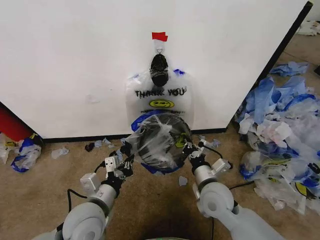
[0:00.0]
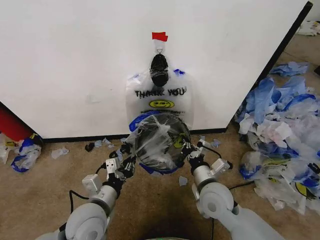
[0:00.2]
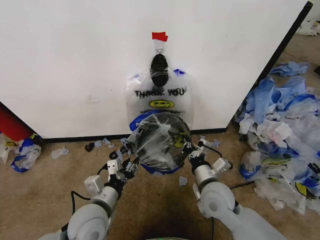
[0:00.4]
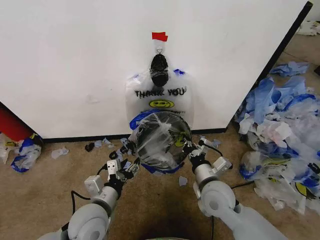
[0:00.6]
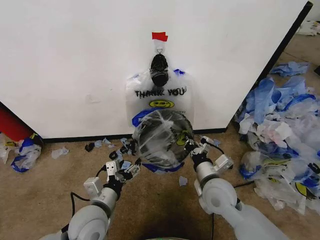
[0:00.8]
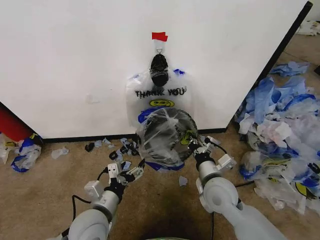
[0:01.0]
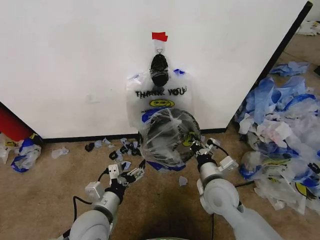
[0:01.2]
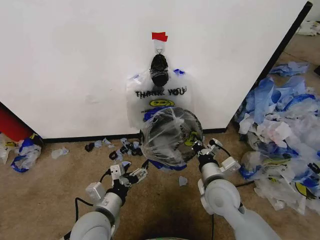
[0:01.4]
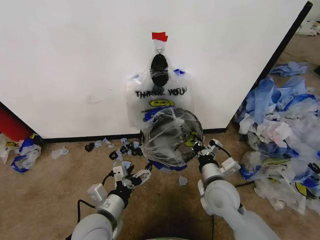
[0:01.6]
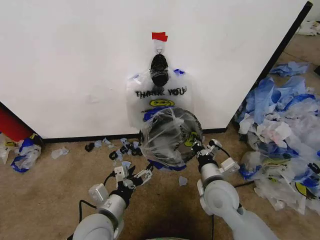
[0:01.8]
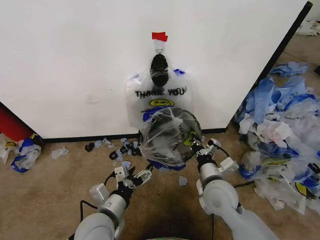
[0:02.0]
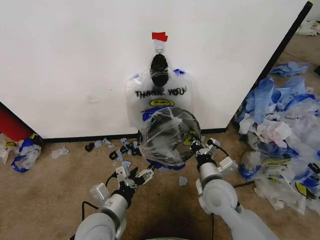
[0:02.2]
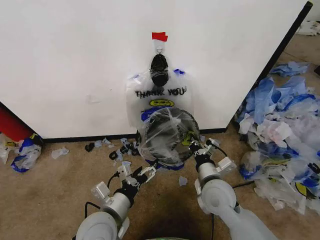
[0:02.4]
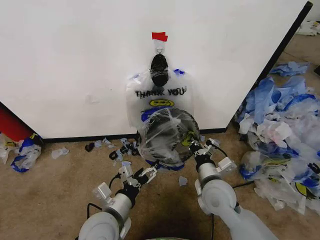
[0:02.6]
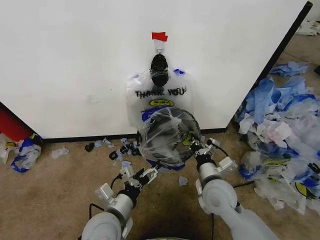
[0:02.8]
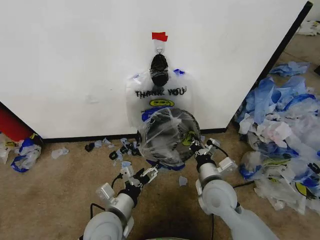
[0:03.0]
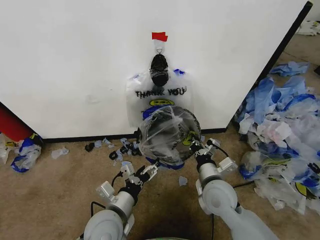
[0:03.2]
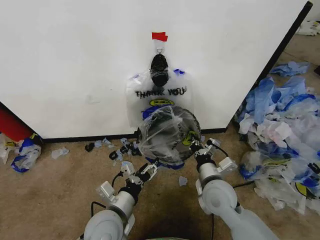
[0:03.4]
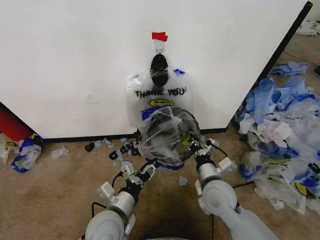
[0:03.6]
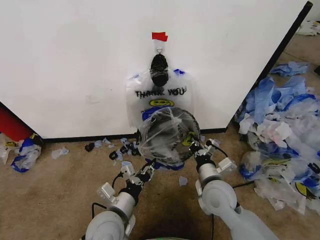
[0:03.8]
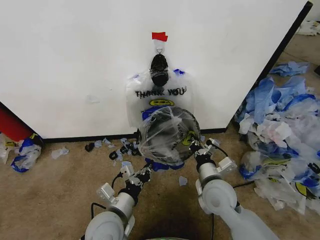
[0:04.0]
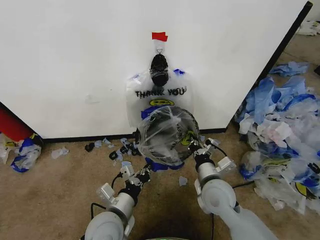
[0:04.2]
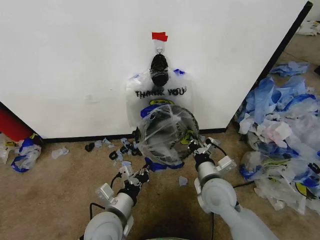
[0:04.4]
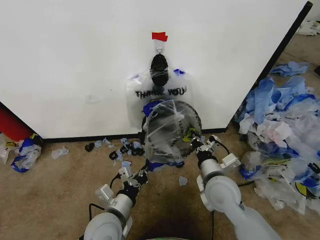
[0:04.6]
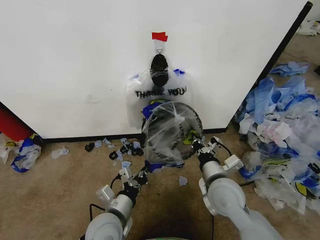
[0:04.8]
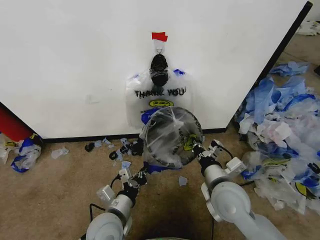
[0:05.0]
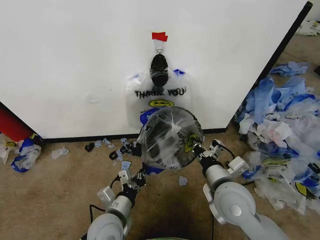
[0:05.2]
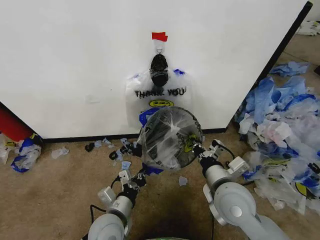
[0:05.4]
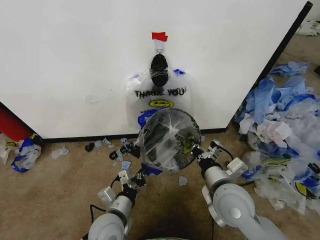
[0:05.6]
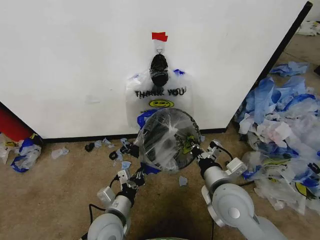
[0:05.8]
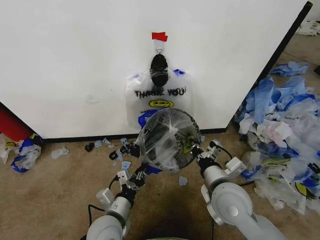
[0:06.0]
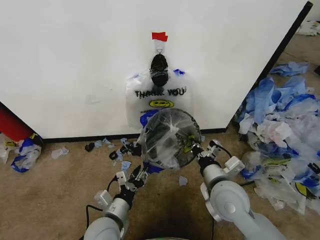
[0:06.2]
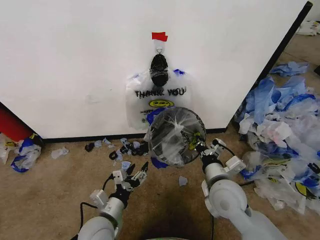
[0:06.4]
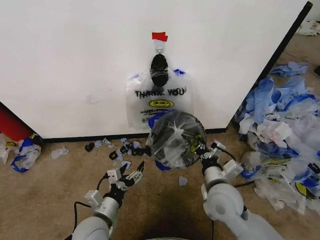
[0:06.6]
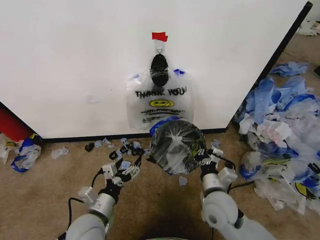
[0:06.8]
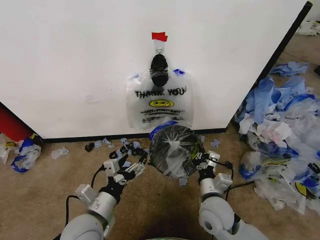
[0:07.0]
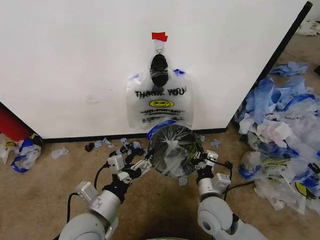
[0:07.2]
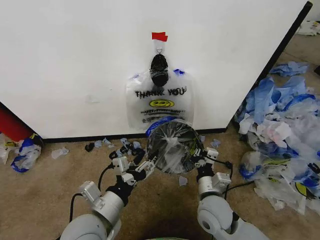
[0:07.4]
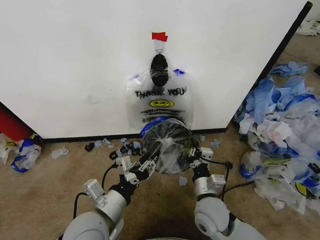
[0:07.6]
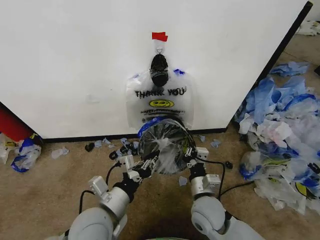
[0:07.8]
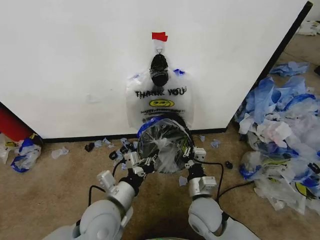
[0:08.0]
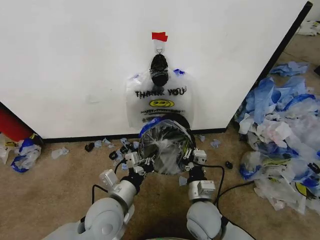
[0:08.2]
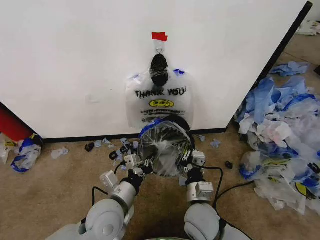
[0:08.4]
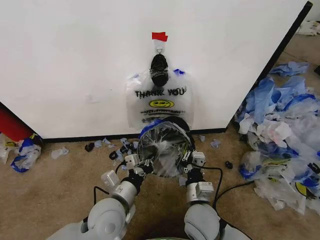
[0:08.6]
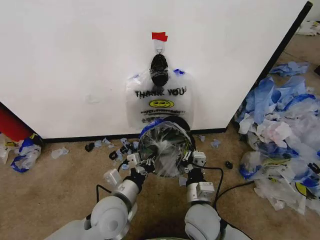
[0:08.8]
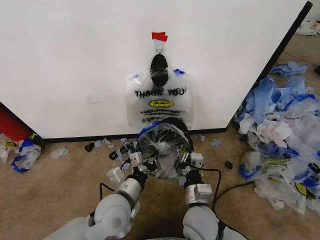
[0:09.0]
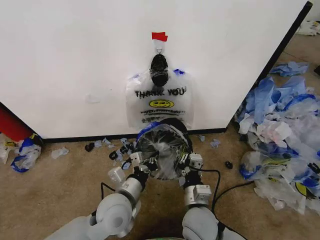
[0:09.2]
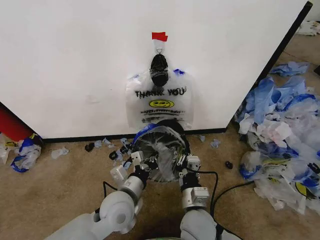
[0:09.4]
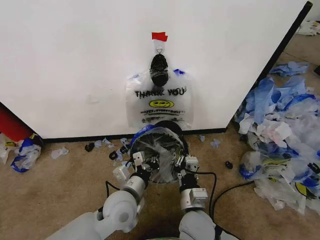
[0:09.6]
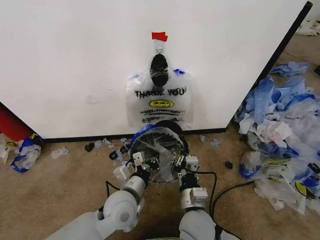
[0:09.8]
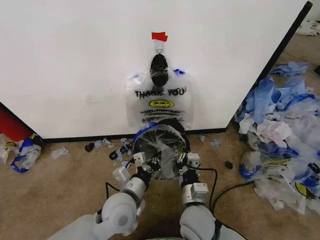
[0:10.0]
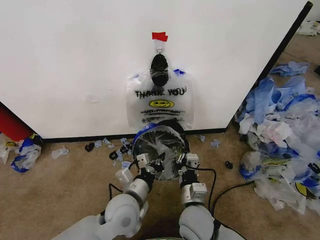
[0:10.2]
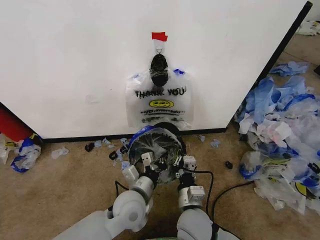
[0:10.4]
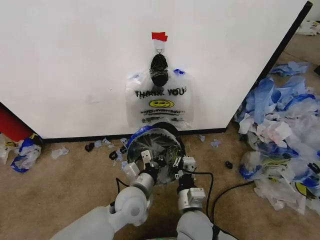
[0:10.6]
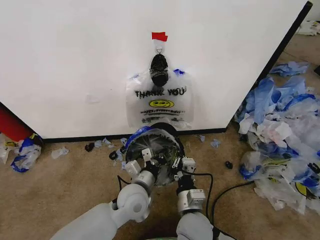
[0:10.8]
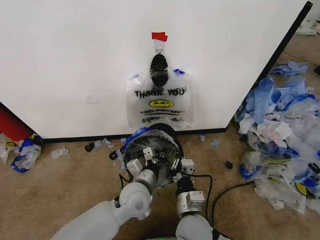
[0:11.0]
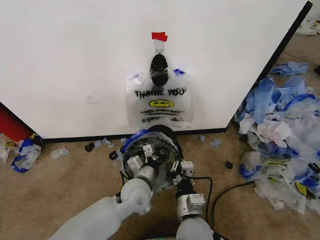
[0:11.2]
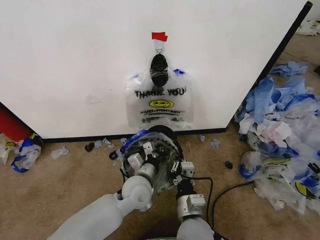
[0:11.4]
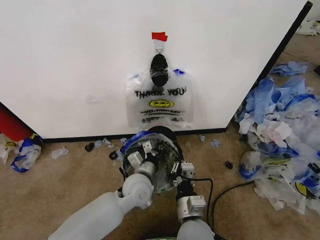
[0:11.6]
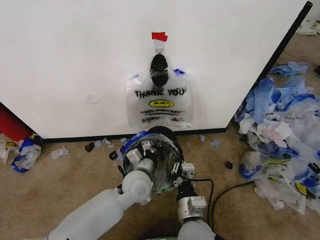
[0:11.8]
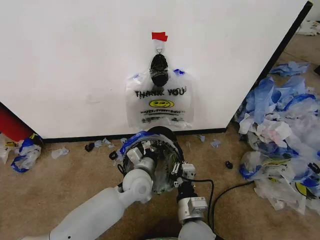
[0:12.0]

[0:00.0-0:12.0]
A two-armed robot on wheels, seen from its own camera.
Task of the whole recording: Pick up the garbage bag from the wall and place it over the trash bin.
0:00.0 to 0:01.6: The left gripper opens.
0:01.6 to 0:03.0: There are only small adjustments of the grippers.
0:03.0 to 0:04.4: The left gripper closes up.
0:04.4 to 0:06.0: The right gripper moves approximately 5 cm.
0:06.0 to 0:07.6: The left gripper heads upward, covering roughly 10 cm, and opens, then closes again; the right gripper travels downward by some 10 cm.
0:07.6 to 0:09.0: The left gripper travels forward by some 5 cm, and closes its fingers.
0:09.0 to 0:10.4: The grippers move only a little.
0:10.4 to 0:12.0: The left gripper is displaced forward by some 5 cm.

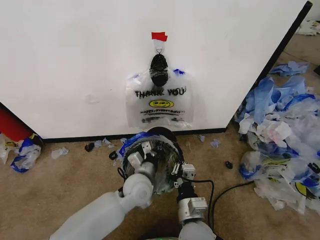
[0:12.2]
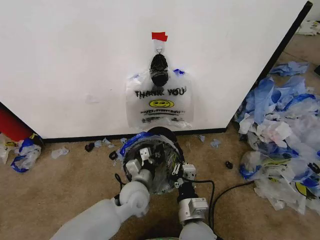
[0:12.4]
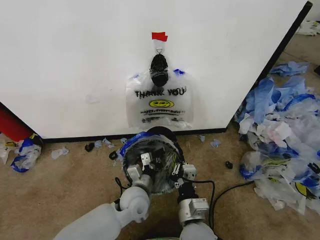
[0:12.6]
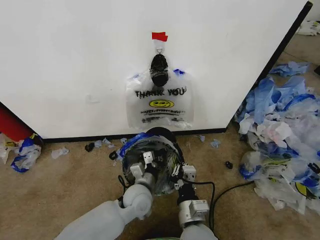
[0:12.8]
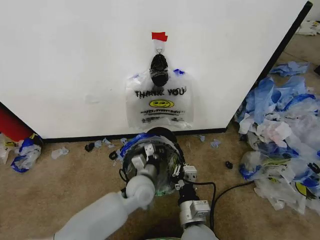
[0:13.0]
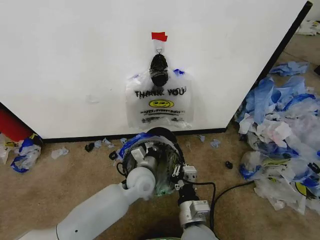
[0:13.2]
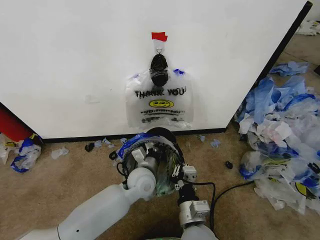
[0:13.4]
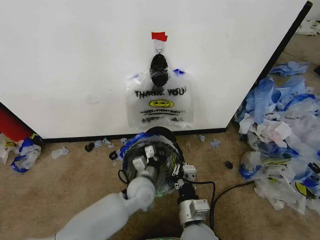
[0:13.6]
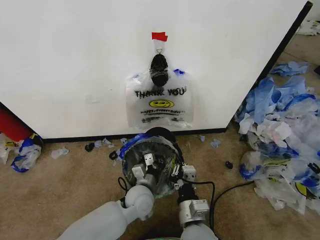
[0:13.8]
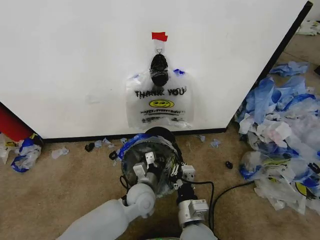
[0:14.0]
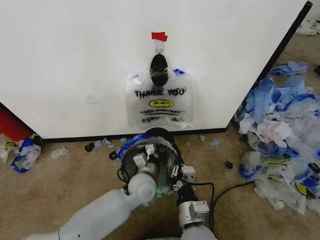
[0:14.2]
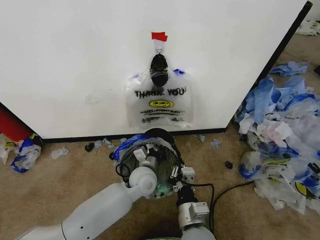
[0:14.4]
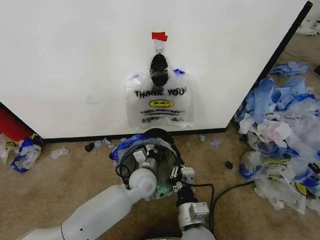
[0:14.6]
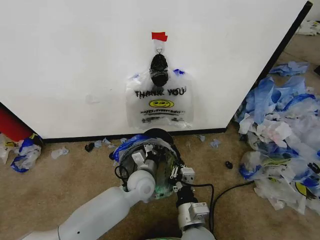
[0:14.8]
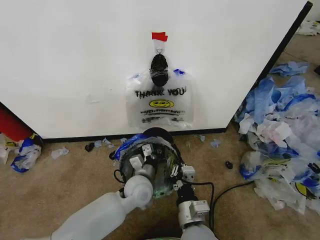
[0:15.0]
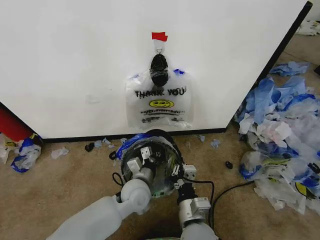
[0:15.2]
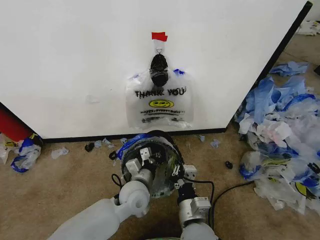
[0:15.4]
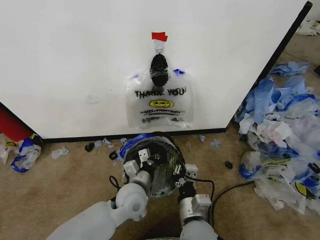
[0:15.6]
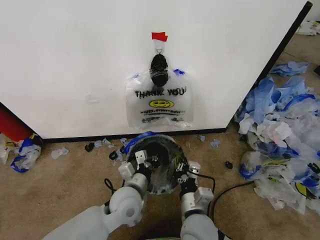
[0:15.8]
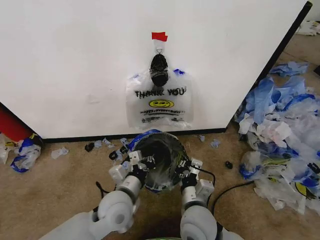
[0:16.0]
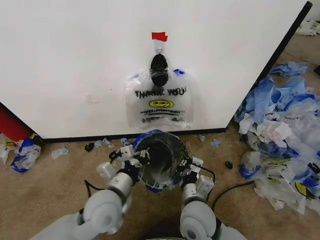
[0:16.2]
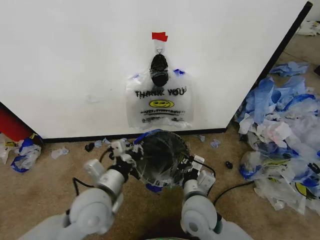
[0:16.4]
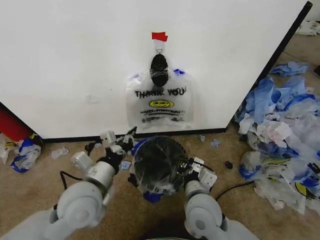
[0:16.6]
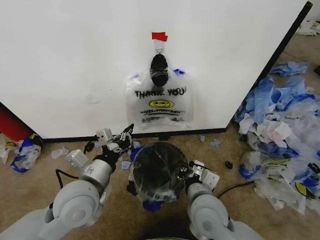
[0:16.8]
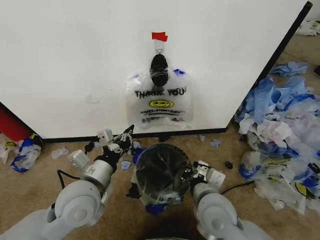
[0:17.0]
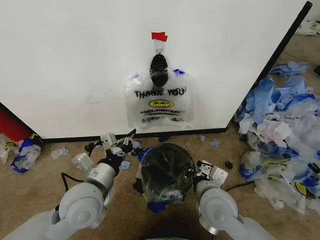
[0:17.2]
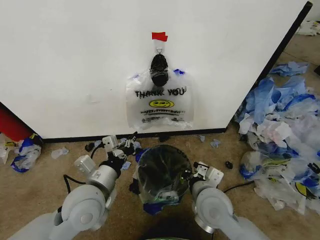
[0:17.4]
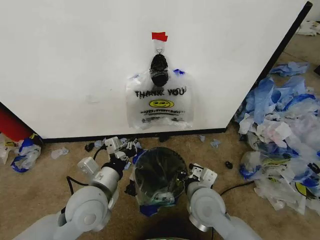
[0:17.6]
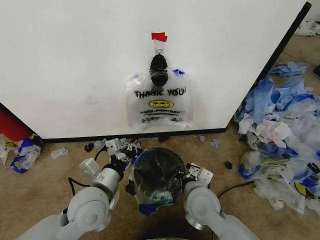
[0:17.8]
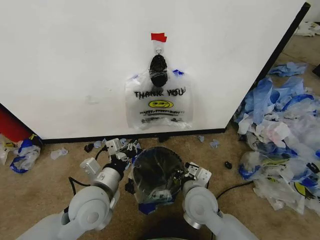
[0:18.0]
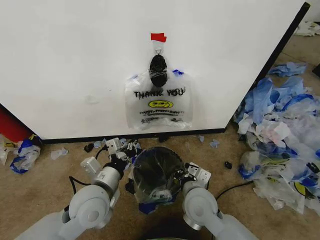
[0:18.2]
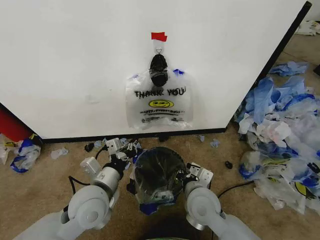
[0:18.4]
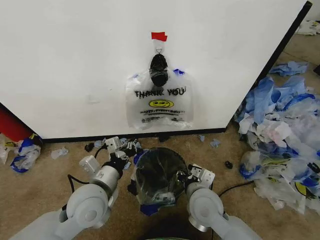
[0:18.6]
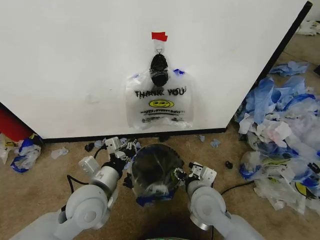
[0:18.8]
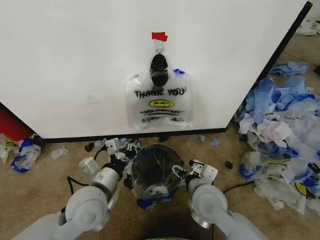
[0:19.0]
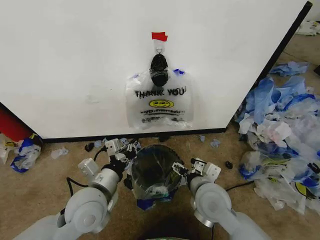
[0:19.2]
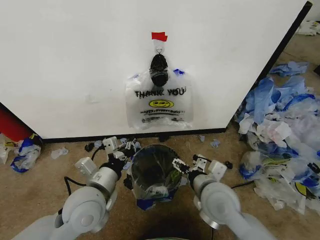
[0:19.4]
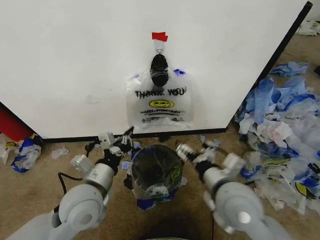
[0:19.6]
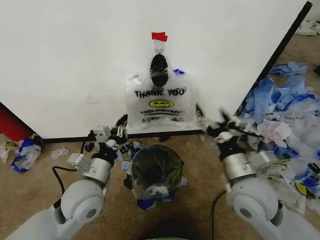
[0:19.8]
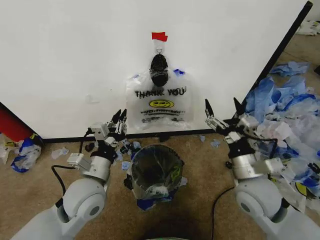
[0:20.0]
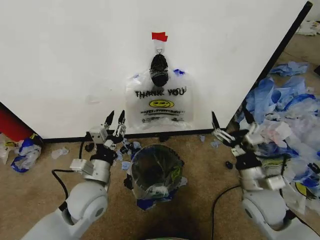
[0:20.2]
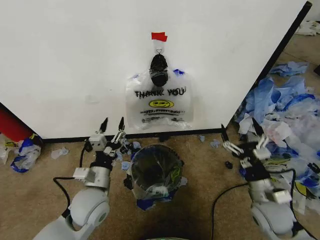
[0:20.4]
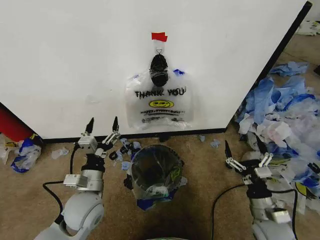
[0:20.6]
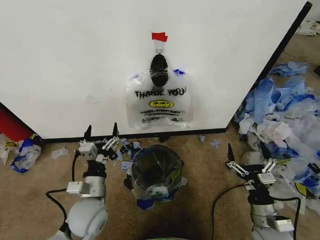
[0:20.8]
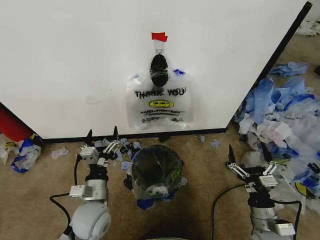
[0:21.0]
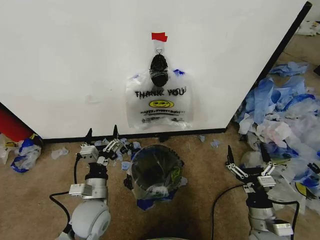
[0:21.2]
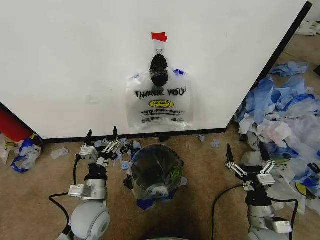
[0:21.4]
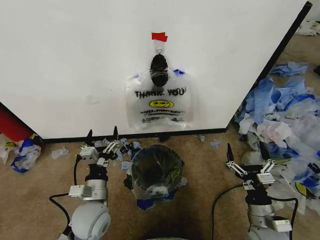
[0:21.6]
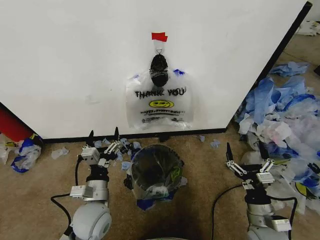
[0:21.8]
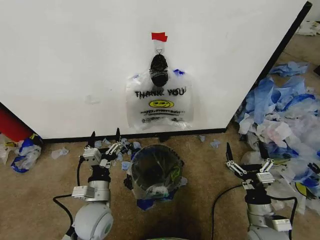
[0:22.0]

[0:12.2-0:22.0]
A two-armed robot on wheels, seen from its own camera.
Task of the whole recording: Pick up the garbage bag from the wall and place it over the trash bin.
0:12.2 to 0:15.0: The grippers make only small movements.
0:15.0 to 0:16.4: The left gripper moves upward, to the left and backward, some 15 cm; the right gripper travels forward by some 5 cm.
0:17.8 to 0:19.2: The right gripper opens up.
0:19.2 to 0:20.6: The left gripper is displaced downward by approximately 5 cm, and opens its fingers; the right gripper heads to the right and downward, covering approximately 20 cm.
0:20.6 to 0:22.0: The grippers move only a little.
